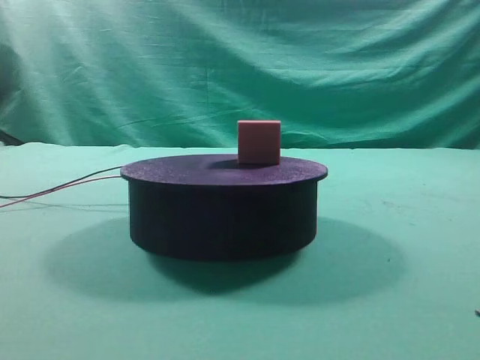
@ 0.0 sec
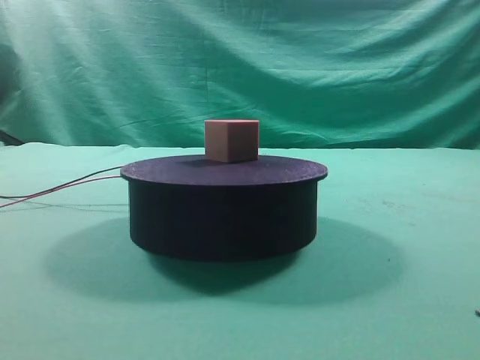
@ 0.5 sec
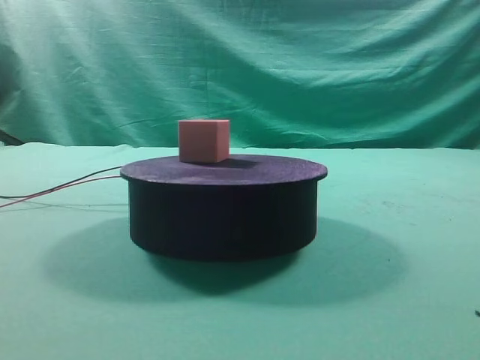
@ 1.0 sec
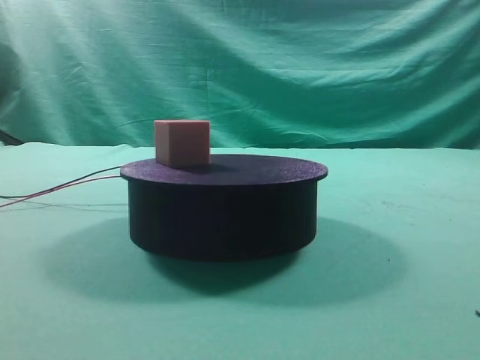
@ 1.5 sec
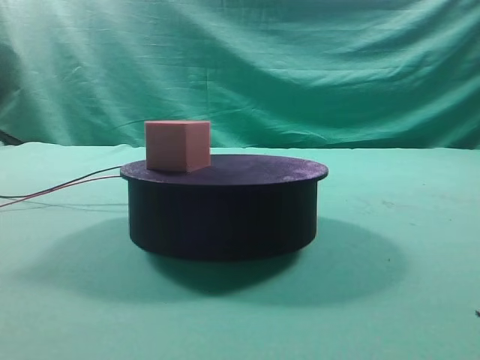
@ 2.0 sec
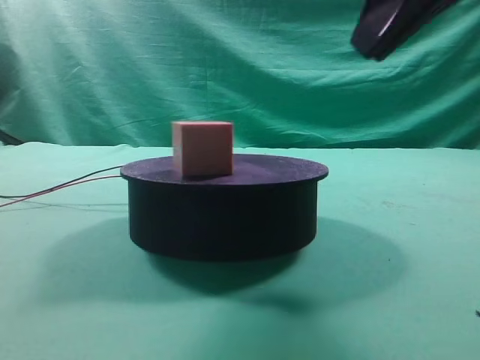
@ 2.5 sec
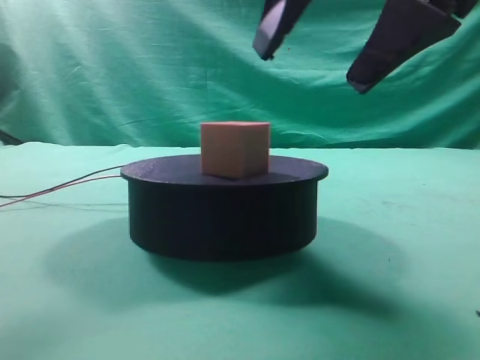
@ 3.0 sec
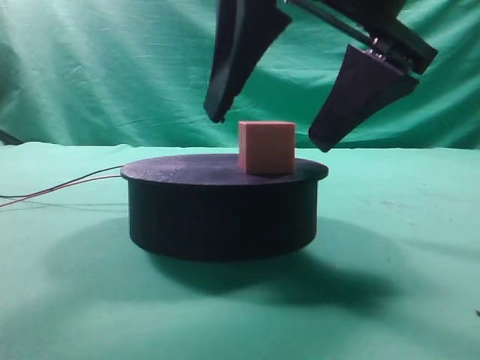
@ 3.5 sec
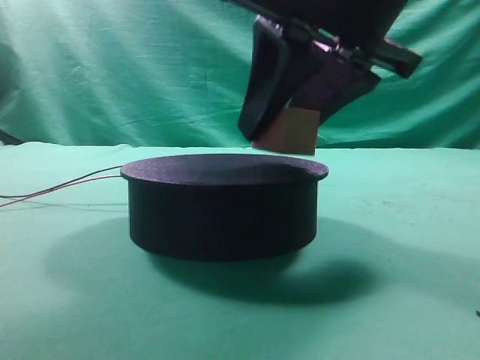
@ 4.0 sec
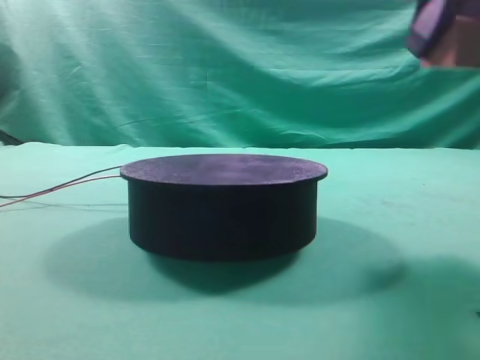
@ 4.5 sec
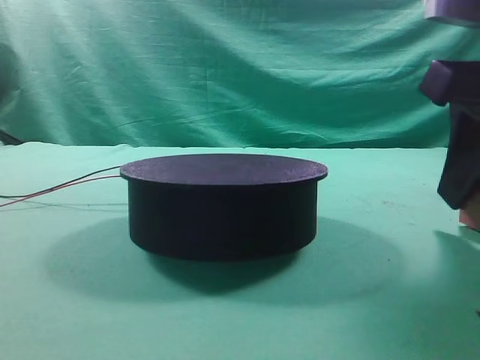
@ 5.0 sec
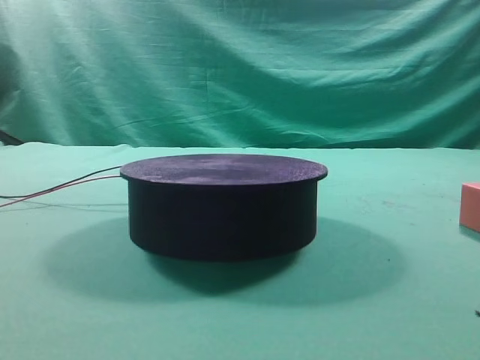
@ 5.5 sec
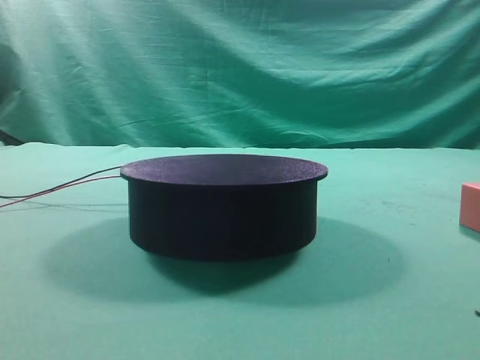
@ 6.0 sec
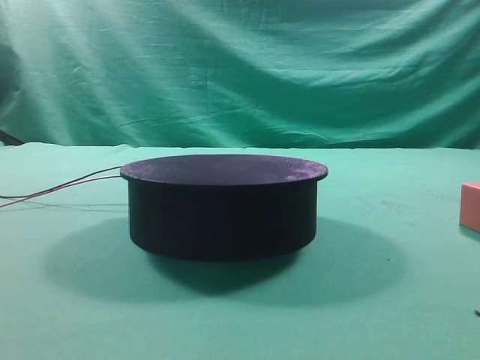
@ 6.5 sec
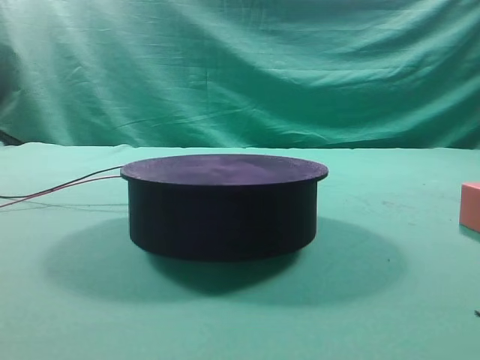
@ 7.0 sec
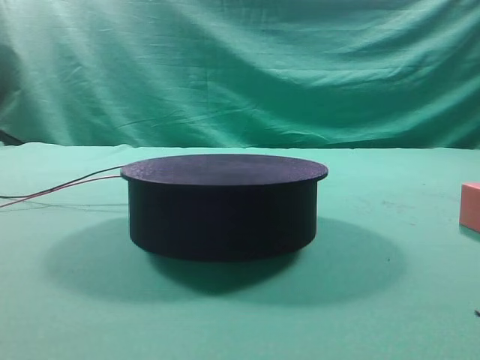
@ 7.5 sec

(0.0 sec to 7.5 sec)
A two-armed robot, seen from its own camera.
Task of the whole recording: grasp the rotating cube-shaped block on the turntable and place it on the table.
Step, 0.0 sec - 4.0 sec: Grasp the rotating cube-shaped block on the turntable.
Step, 4.5 sec - 5.0 sec: Place the cube on the desk.
